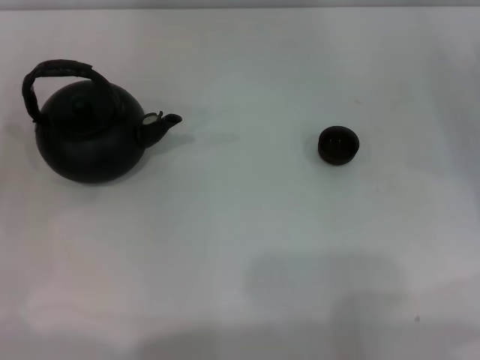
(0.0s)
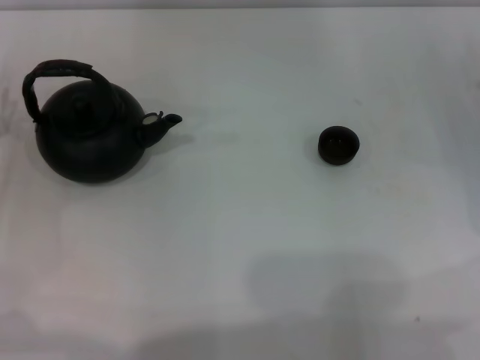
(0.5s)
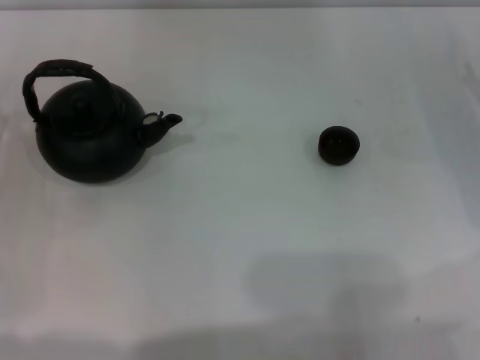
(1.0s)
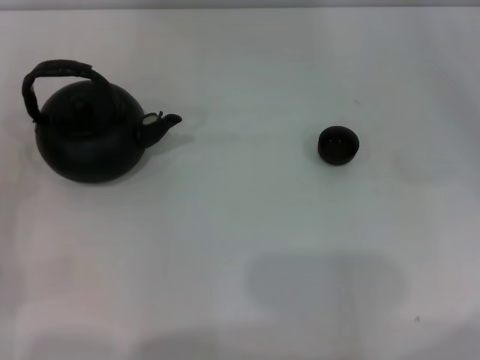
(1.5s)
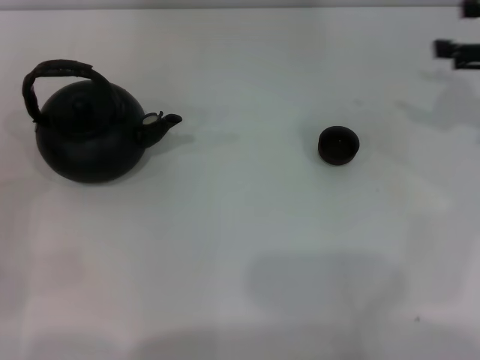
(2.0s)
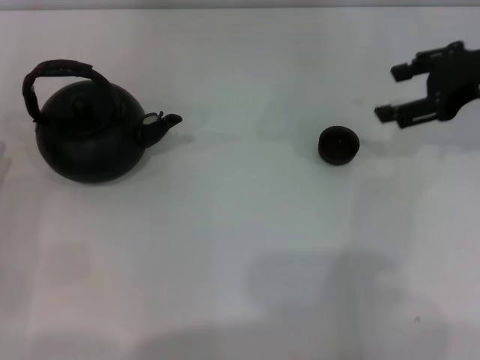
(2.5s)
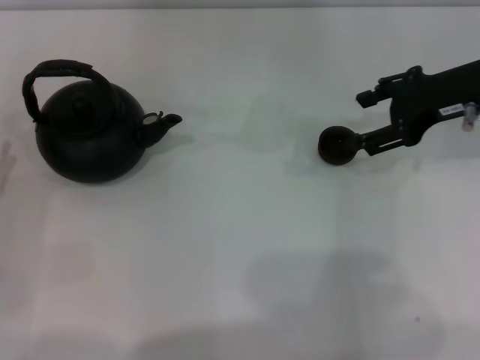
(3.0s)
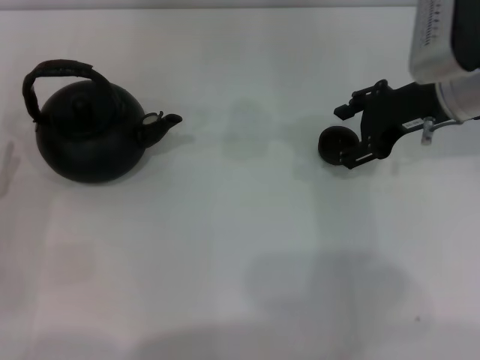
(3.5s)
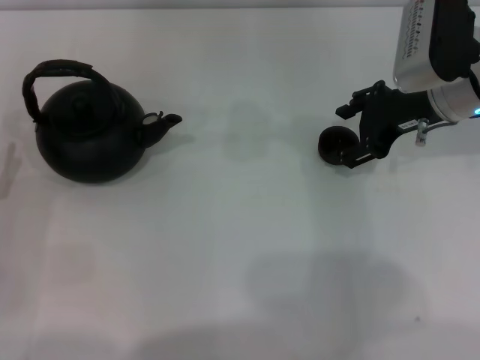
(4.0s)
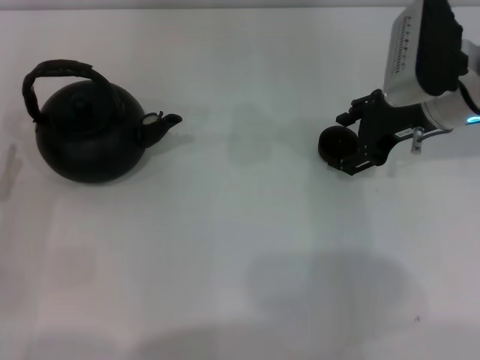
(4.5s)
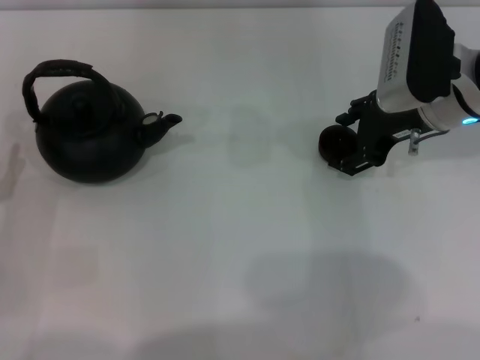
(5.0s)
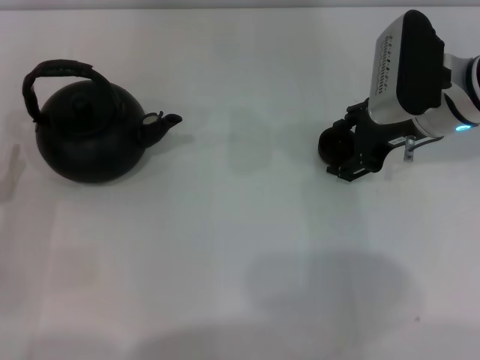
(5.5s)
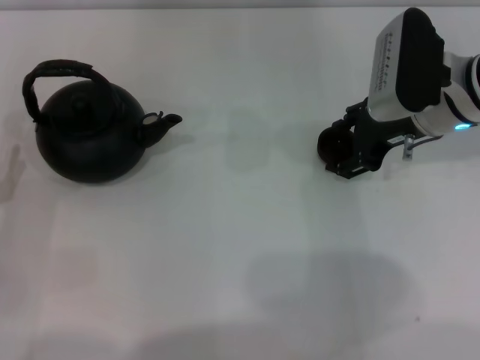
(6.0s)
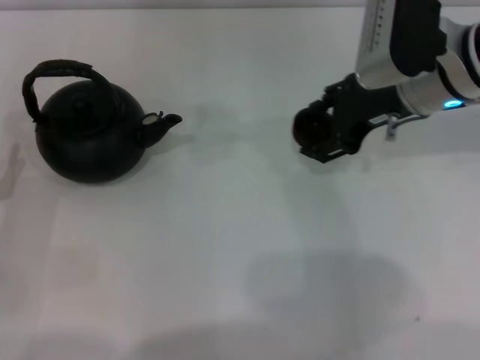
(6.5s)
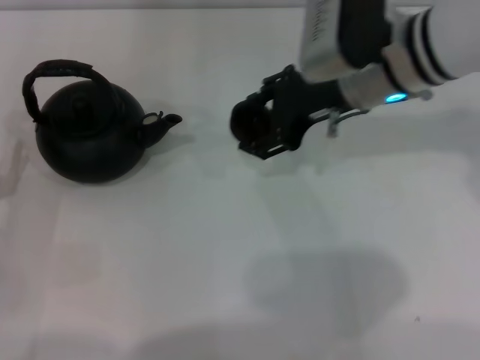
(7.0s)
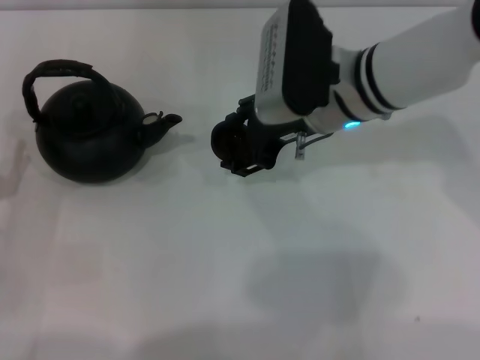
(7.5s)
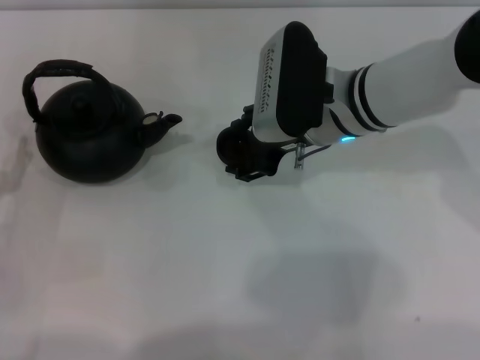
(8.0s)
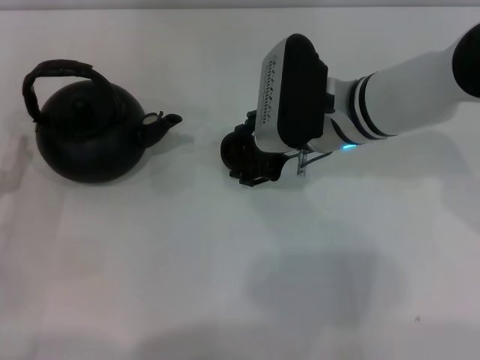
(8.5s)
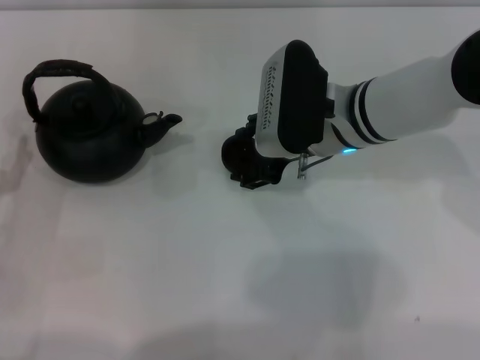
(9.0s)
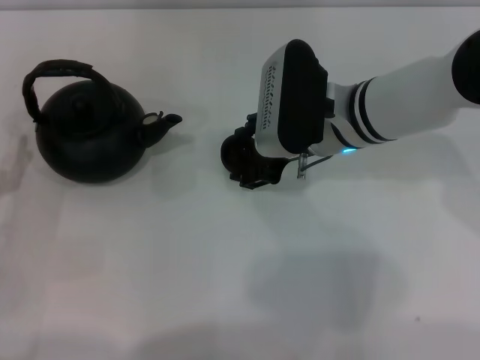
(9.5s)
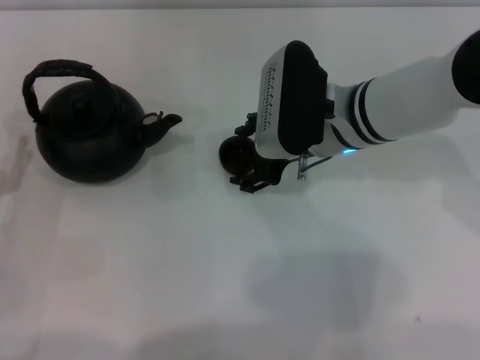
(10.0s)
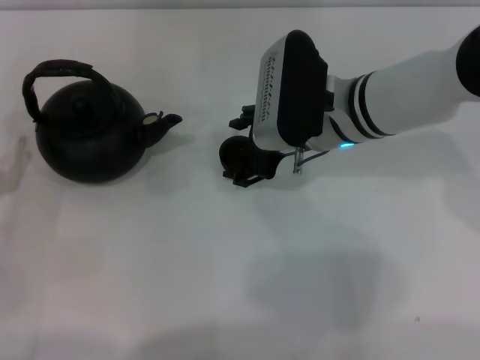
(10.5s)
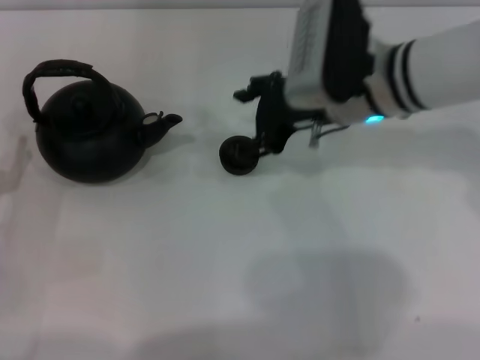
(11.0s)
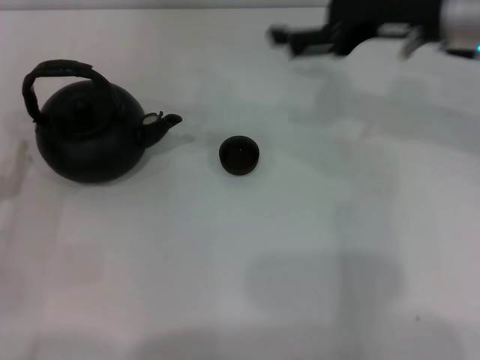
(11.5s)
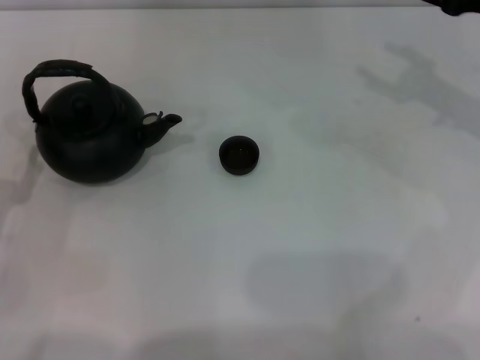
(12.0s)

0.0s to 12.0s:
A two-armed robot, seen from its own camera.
Task of the whole recording: Grasp the handle of the teapot with one hand and pour tea into the teacup.
Step, 0.0s to 6.0s: Pick up the teacup with the right gripper.
Step, 6.5s to 11.0s: Place the teacup in the center of view with the right gripper.
0.0s to 2.0s: The right gripper heads upward, covering about 15 cm.
2.0s to 4.0s: The right gripper is displaced to the left by about 15 cm.
4.0s to 6.0s: The grippers move only a little.
6.0s to 8.0s: The right gripper shifts some 10 cm to the left.
8.0s to 10.0s: Both grippers stay put.
10.0s to 12.0s: The right gripper goes some 20 cm to the right.

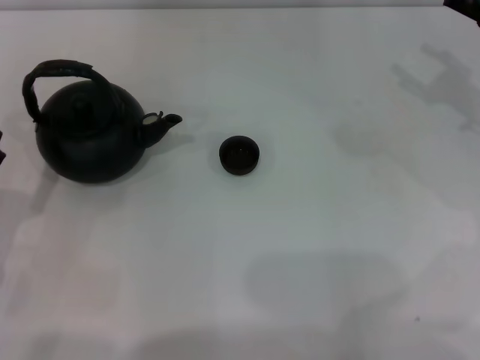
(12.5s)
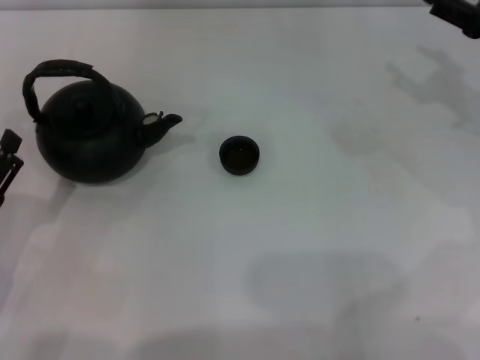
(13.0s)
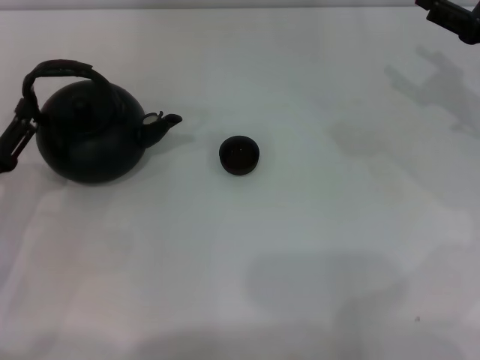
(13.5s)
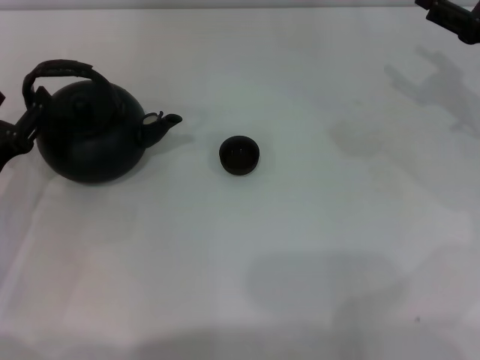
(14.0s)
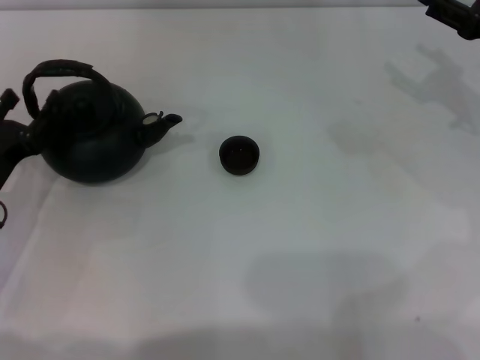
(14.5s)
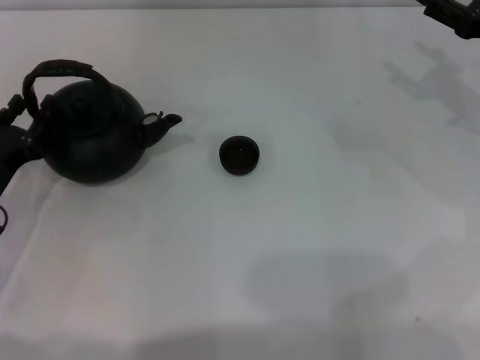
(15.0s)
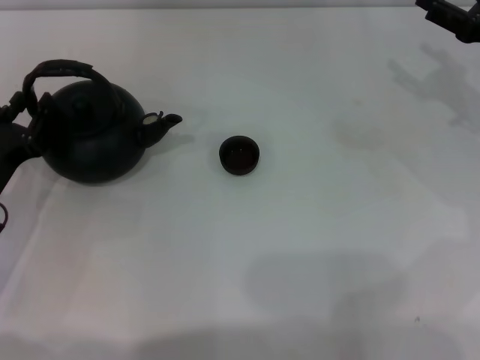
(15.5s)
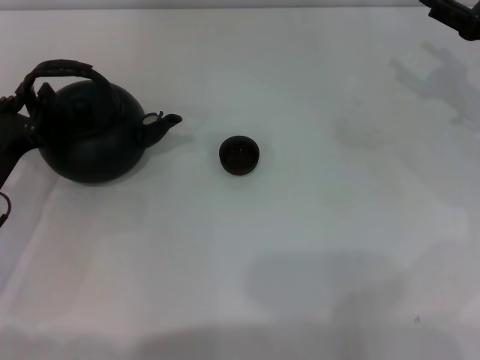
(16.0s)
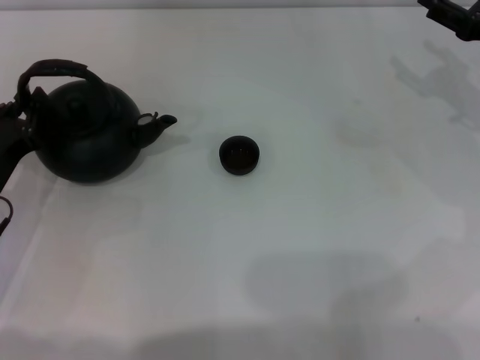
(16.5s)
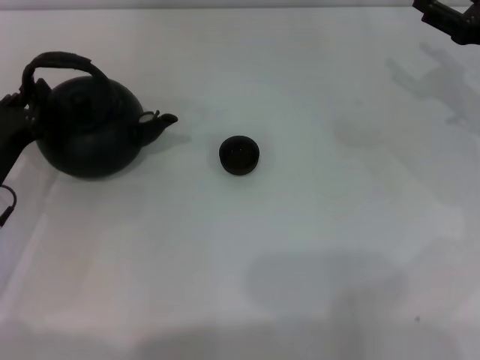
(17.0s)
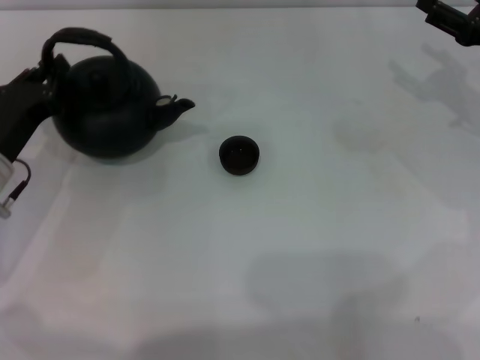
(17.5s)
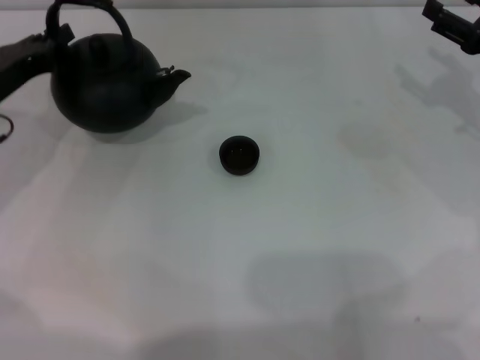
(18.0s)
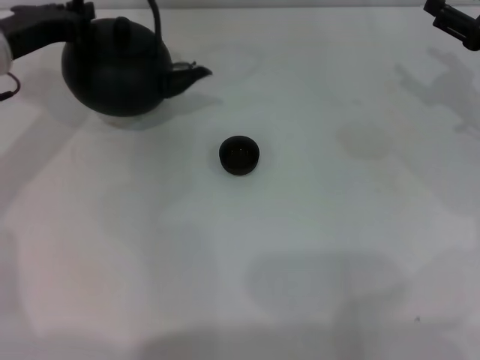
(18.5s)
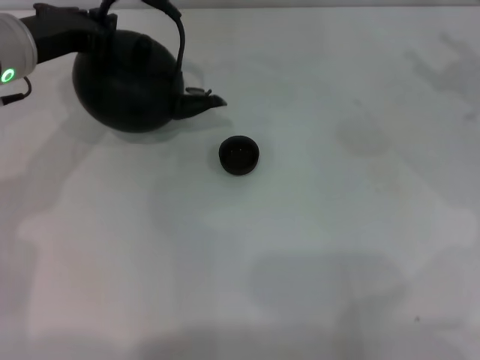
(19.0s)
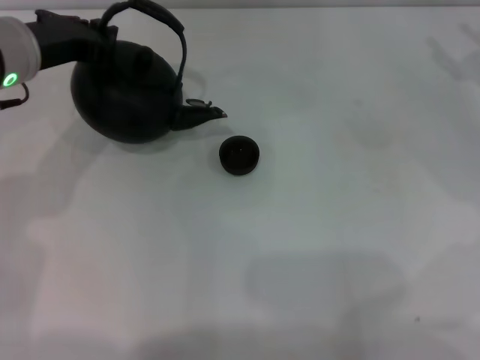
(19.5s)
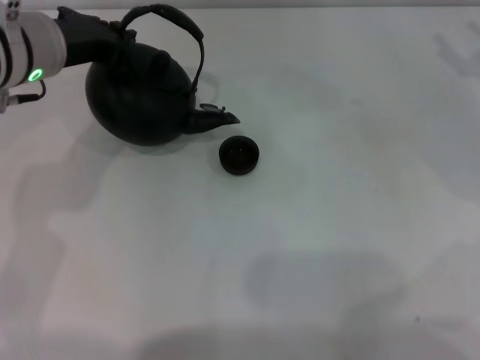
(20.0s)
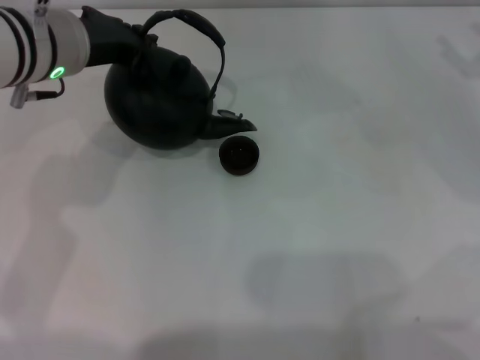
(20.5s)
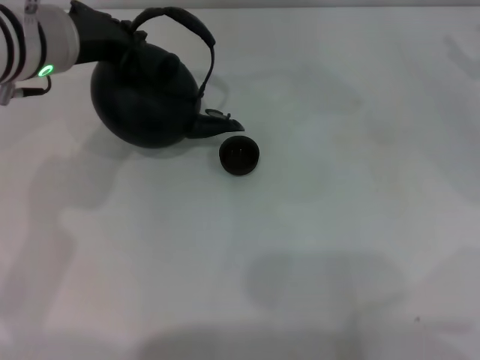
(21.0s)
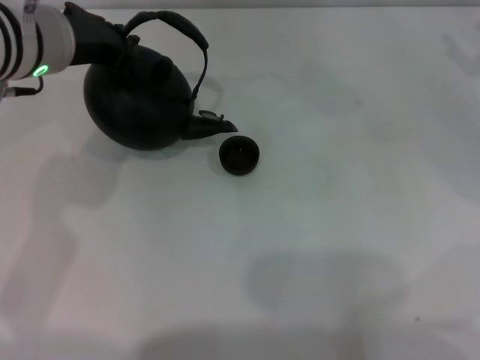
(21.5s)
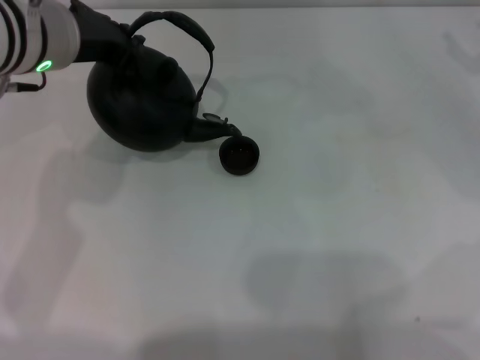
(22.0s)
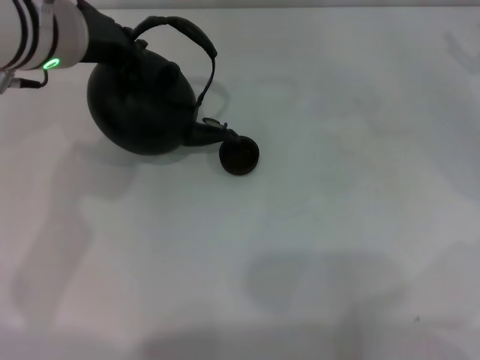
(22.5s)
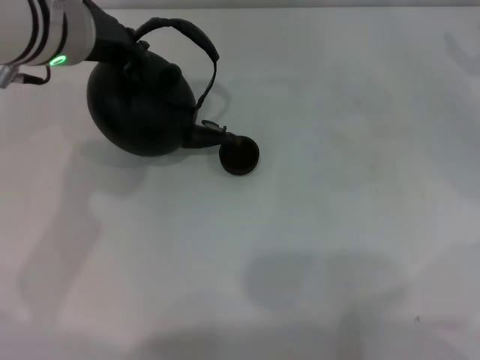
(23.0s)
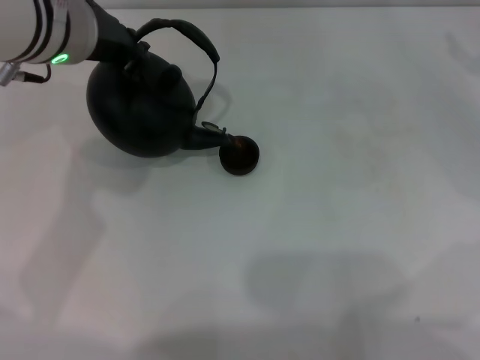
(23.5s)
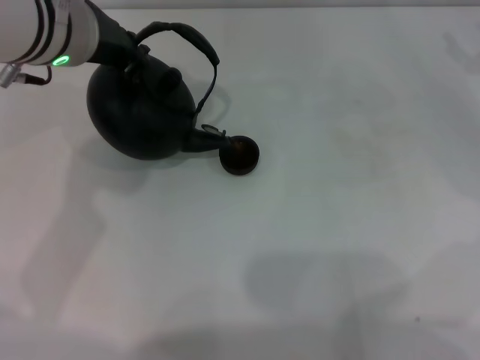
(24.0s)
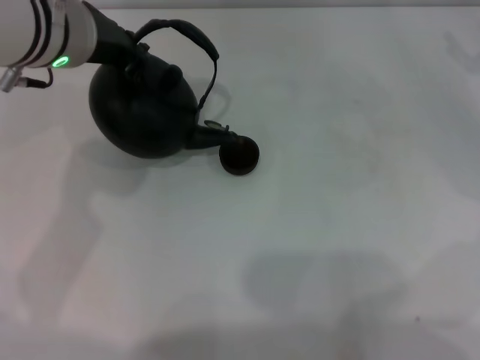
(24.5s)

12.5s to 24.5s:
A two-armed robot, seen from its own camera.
Task of the whole recording: Grasp the handle of the teapot with one hand and pour tea into the teacup.
Step, 12.5s to 18.5s: Pick up the teapot with the left gripper.
12.5s to 14.5s: The left gripper shifts some 10 cm forward.
14.5s to 16.5s: The left gripper closes its fingers.
16.5s to 18.5s: The left gripper goes roughly 15 cm forward and upward.
18.5s to 20.5s: The right gripper changes place by roughly 5 cm, while the left gripper travels to the right by roughly 10 cm.
20.5s to 22.5s: There are only small adjustments of the grippers.
22.5s to 24.5s: The two grippers keep their place.

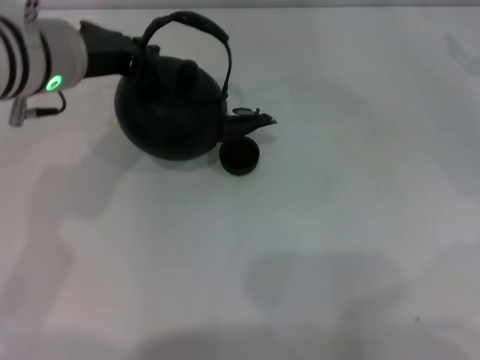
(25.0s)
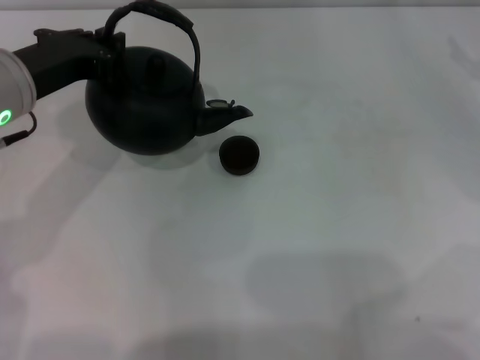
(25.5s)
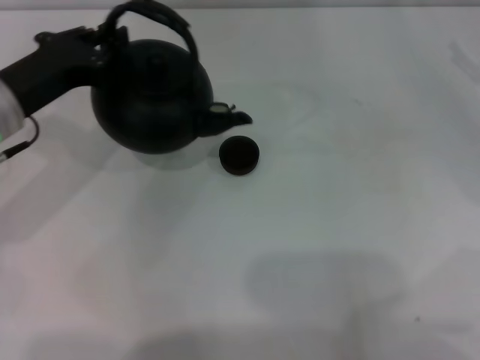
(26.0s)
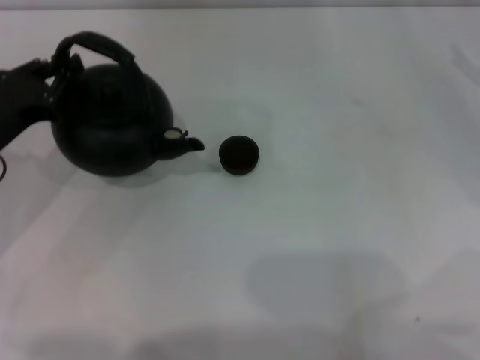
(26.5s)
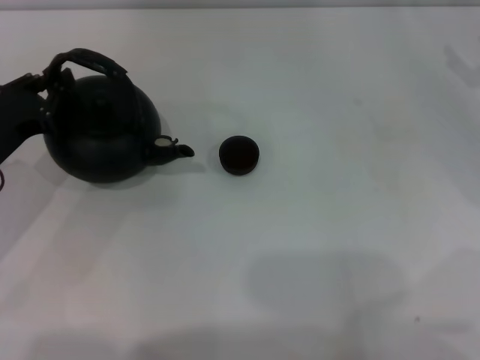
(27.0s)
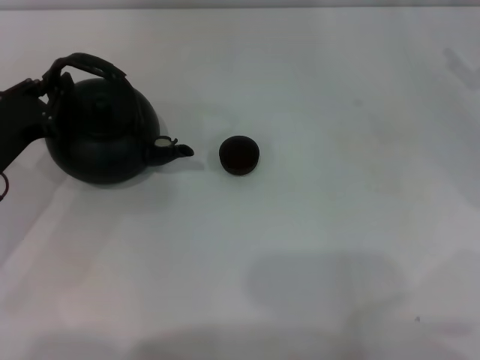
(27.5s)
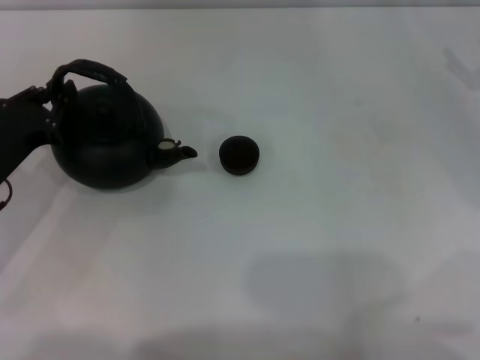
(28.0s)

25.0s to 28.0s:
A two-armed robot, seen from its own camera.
Task of the whole recording: Grasp the handle of the teapot with one hand and pour tea into the teacup.
25.0s to 26.5s: The left gripper moves to the left, downward and backward, some 15 cm.
26.5s to 28.0s: The grippers move only a little.
